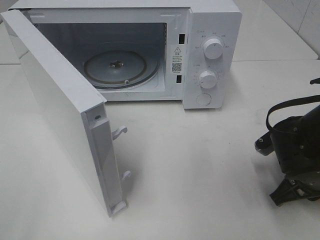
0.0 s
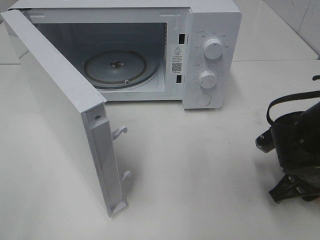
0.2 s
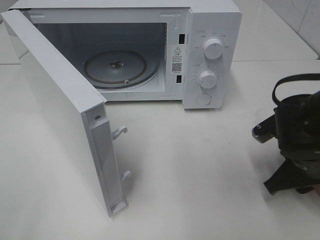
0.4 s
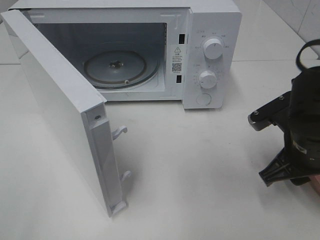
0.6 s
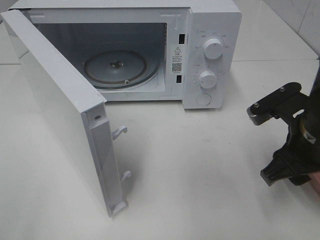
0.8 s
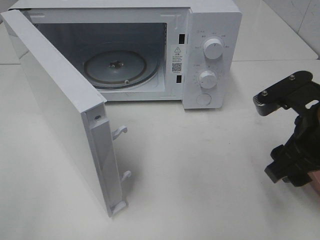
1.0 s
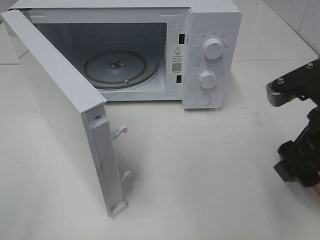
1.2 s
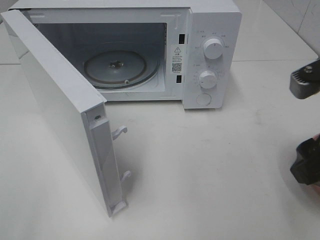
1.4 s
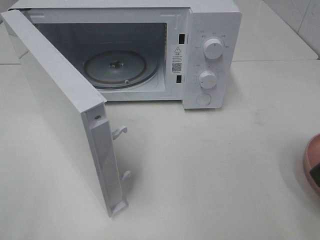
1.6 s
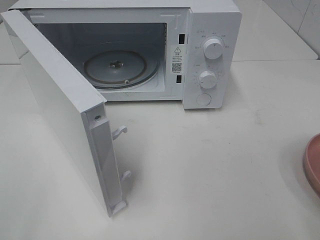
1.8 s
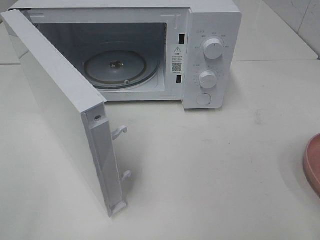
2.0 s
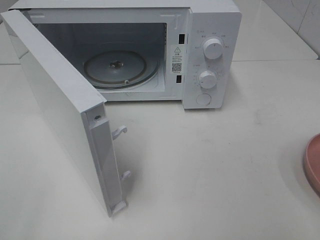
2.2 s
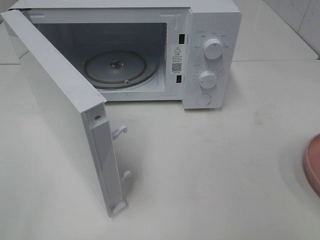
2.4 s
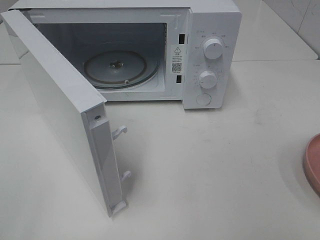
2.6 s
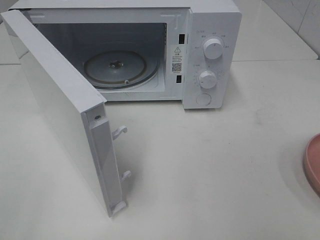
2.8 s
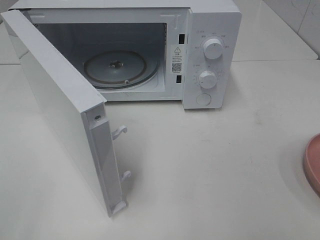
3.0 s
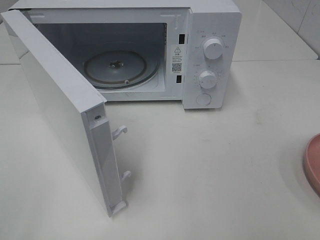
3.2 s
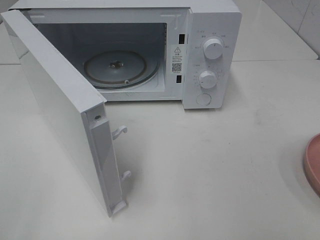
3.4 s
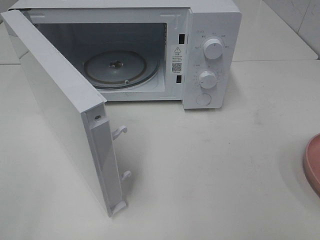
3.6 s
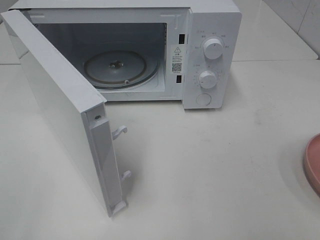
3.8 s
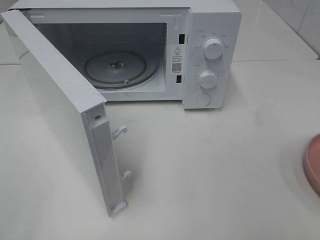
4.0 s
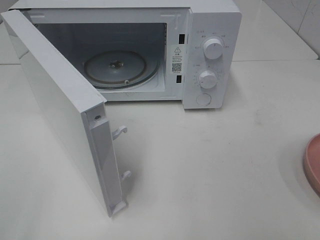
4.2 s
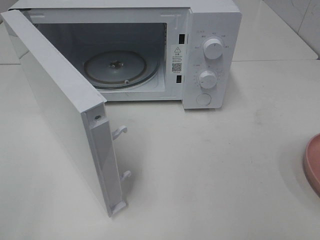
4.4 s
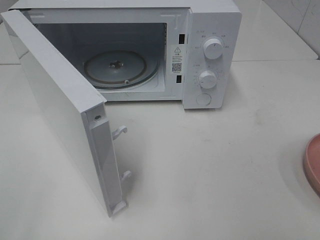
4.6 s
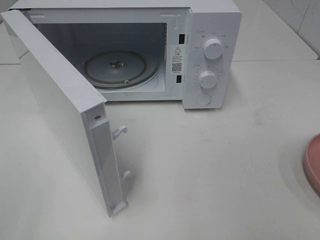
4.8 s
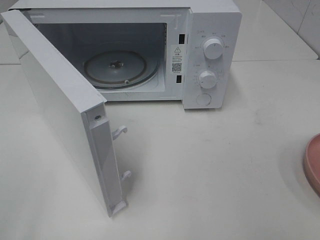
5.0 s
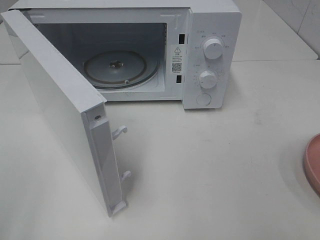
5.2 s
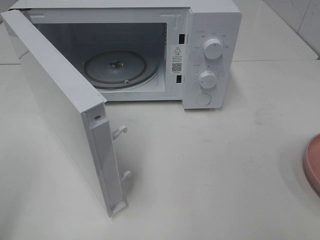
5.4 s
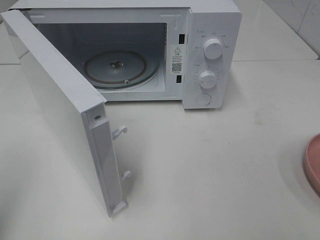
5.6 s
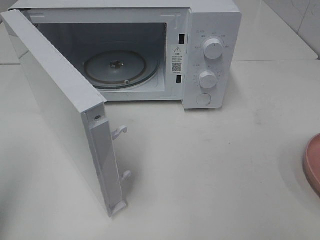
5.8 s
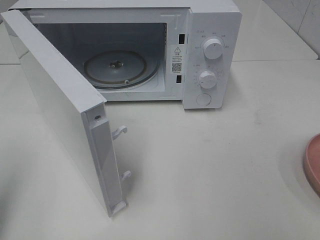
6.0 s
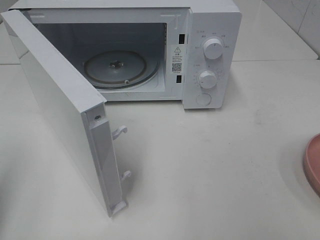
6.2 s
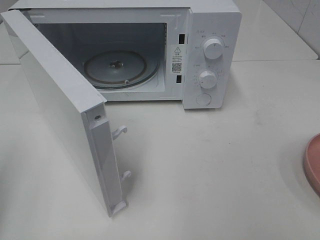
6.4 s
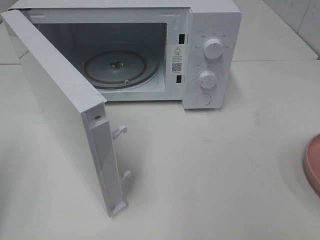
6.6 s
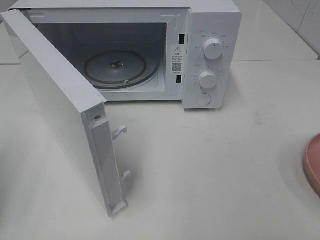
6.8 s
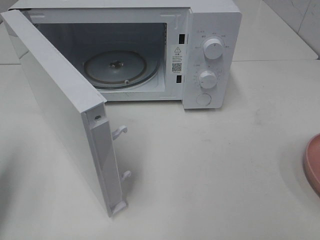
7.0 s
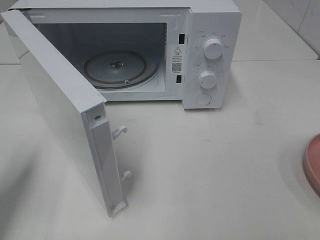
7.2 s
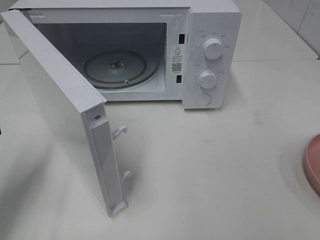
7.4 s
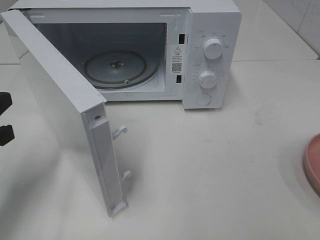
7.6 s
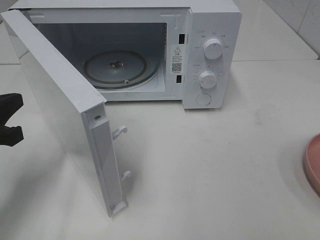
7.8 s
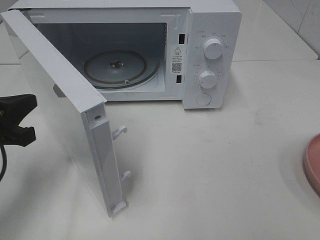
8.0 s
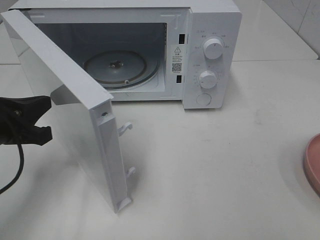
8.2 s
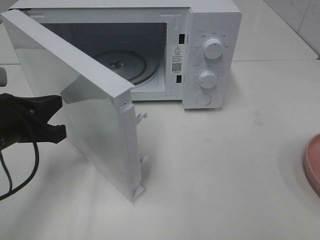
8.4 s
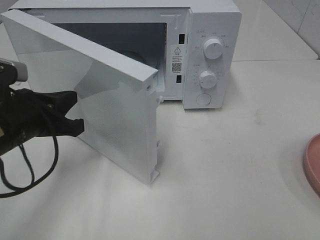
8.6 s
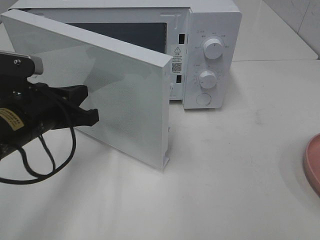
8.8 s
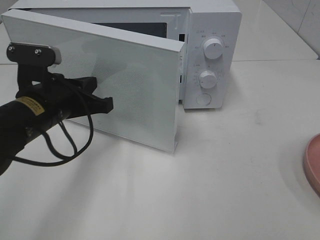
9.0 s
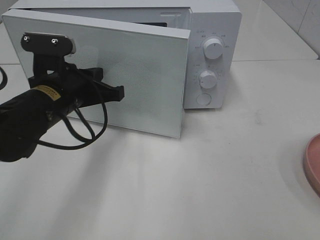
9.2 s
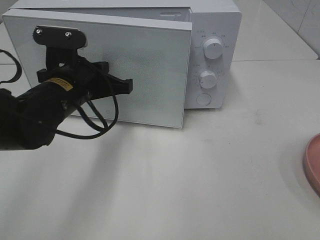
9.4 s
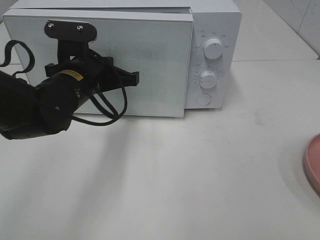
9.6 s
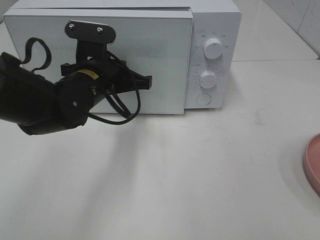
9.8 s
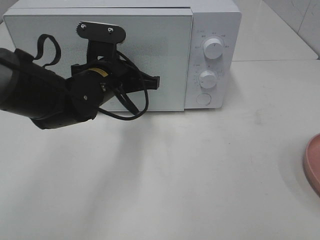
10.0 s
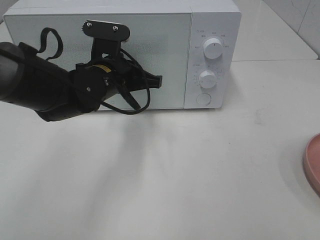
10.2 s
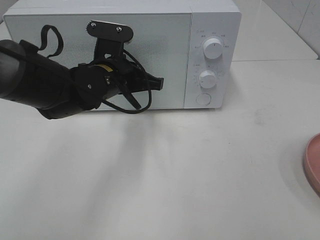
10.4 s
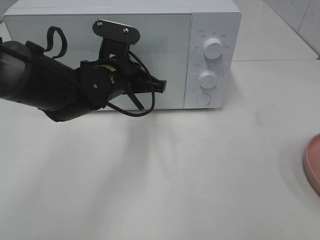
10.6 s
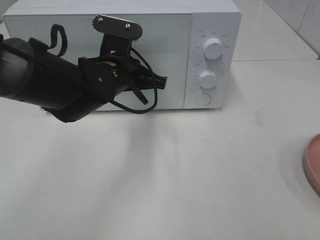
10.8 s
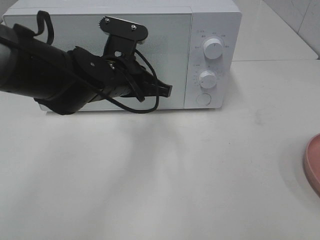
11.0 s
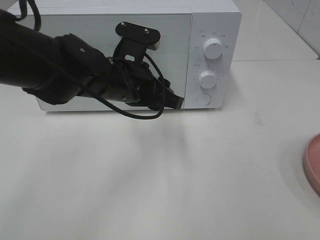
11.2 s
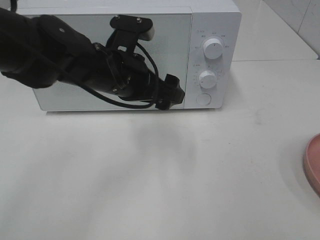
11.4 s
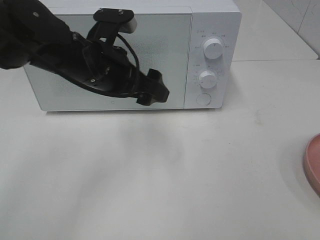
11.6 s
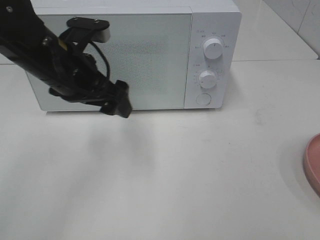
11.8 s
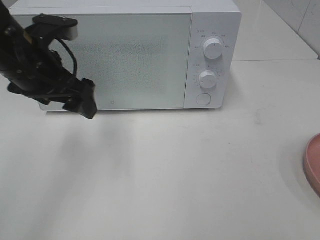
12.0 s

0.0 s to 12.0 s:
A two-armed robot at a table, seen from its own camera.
Task of the whole recording: Heat the burger.
Step, 0.4 to 10.8 s: Left hand: close the microwave door.
0.0 to 1.6 s: The right gripper moves upward and backward, about 20 cm, and opens its fingers.
1.6 to 3.0 s: The right gripper moves backward and to the right, approximately 15 cm.
3.0 to 4.4 s: The two grippers keep their place.
4.4 to 6.0 s: The left gripper heads forward, covering about 10 cm, and closes its fingers.
6.0 to 7.6 s: The left gripper goes about 10 cm forward and downward.
7.6 to 9.0 s: The left gripper is displaced to the right and forward by some 15 cm.
9.0 to 10.4 s: The left gripper travels to the right and forward by some 10 cm.
10.4 to 12.0 s: The left gripper shifts about 10 cm to the left and upward, and opens up.

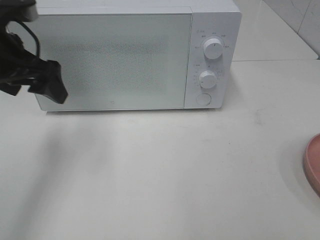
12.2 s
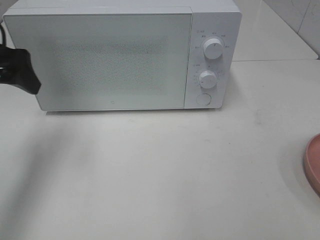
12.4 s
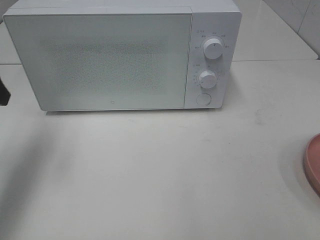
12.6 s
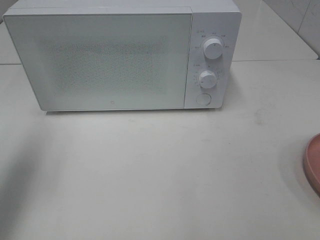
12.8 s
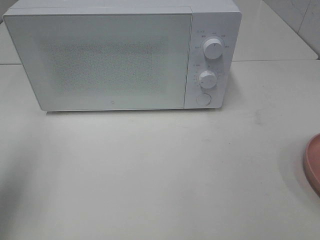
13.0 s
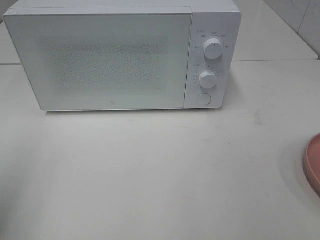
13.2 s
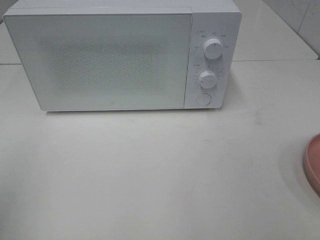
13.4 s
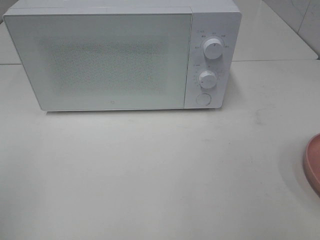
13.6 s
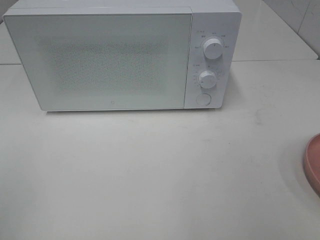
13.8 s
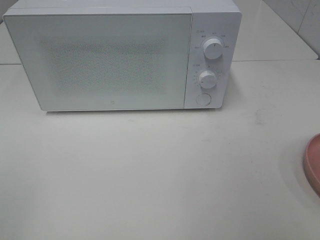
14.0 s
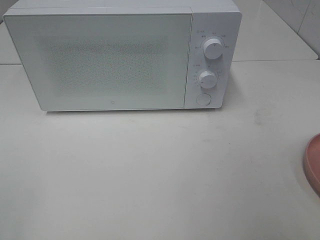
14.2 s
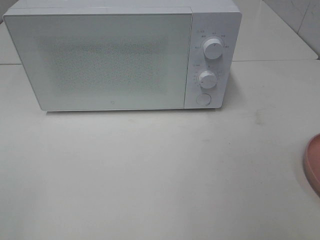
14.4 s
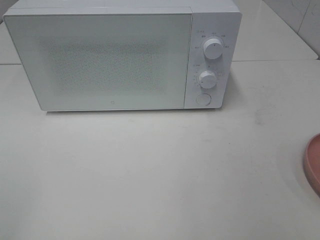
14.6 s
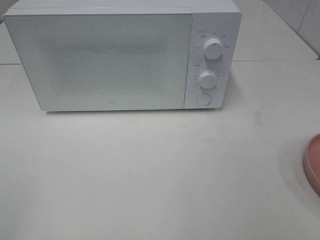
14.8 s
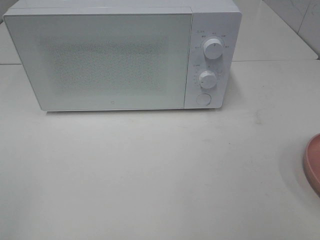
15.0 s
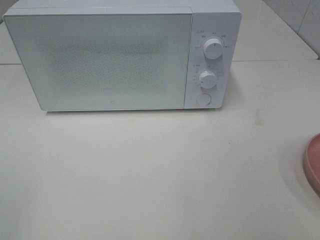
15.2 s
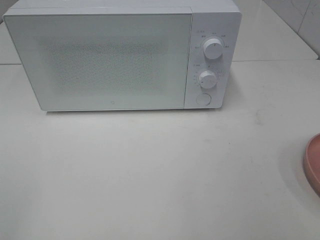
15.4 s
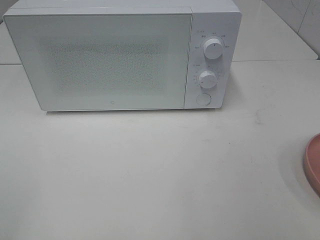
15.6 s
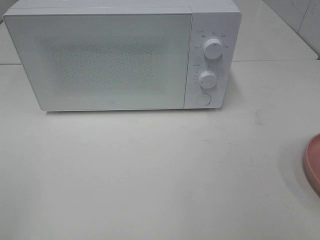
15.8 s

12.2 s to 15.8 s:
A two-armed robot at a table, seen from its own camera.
Task of the whole recording: Heat the burger.
12.2 to 14.0 s: The left gripper moves backward, some 30 cm.

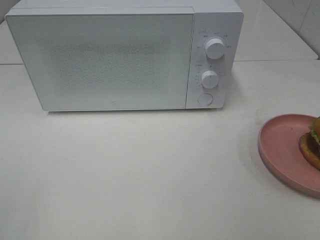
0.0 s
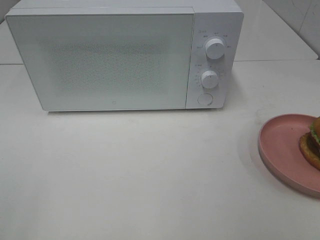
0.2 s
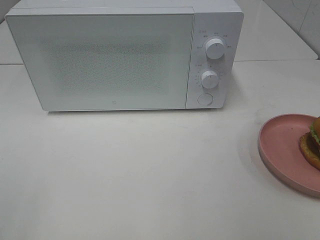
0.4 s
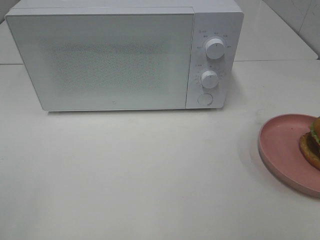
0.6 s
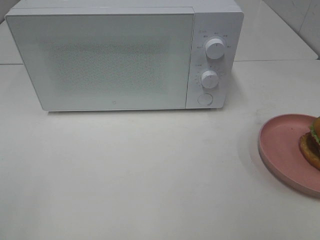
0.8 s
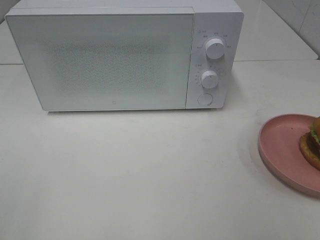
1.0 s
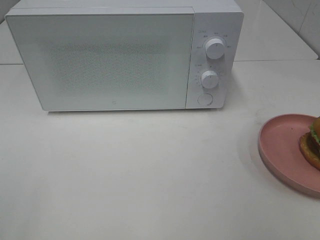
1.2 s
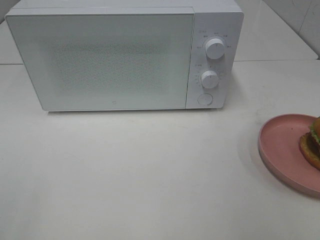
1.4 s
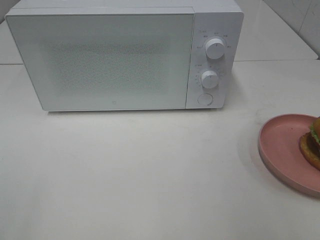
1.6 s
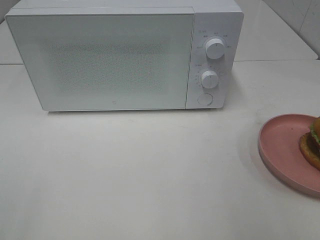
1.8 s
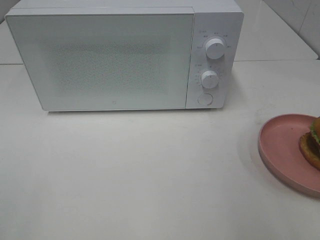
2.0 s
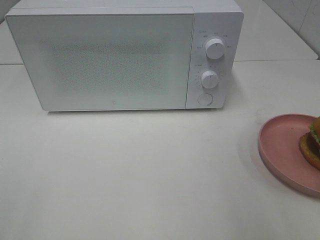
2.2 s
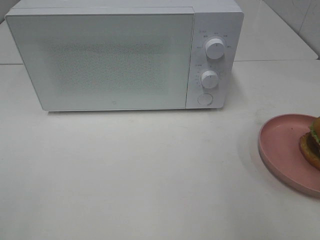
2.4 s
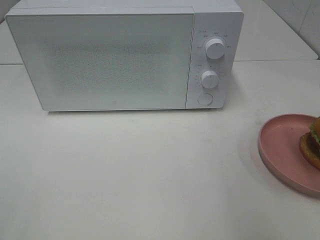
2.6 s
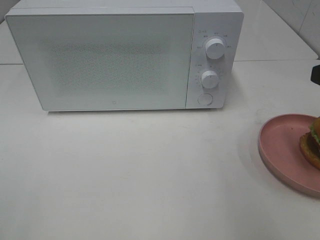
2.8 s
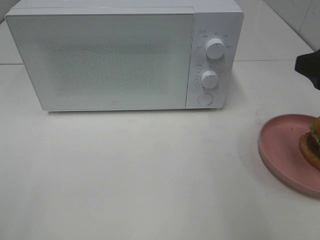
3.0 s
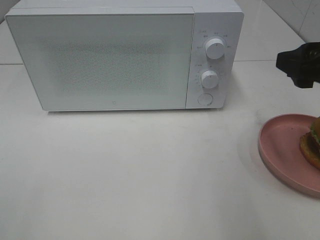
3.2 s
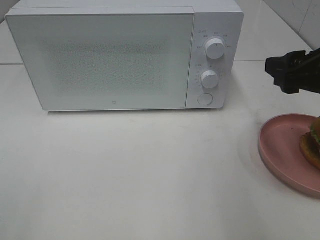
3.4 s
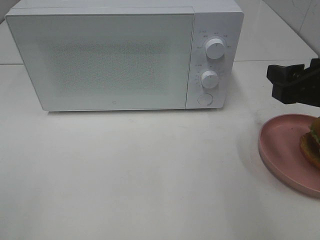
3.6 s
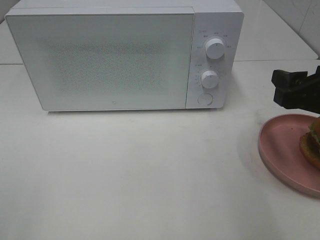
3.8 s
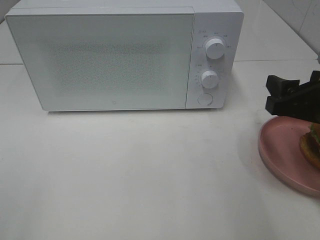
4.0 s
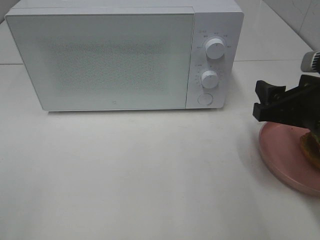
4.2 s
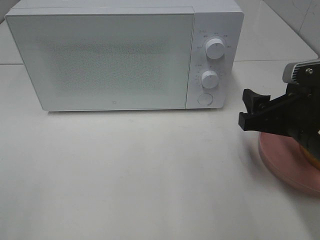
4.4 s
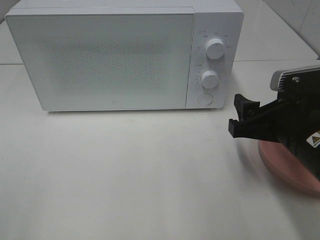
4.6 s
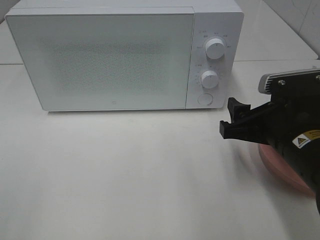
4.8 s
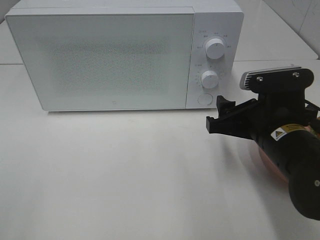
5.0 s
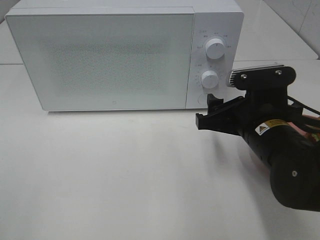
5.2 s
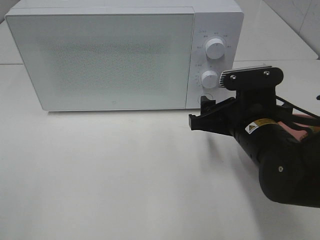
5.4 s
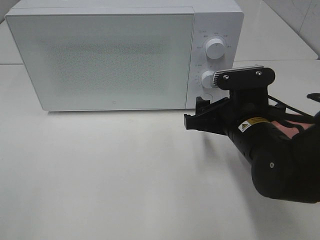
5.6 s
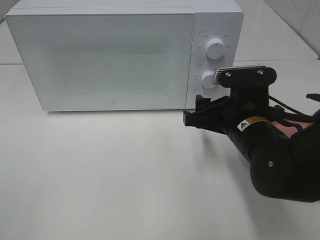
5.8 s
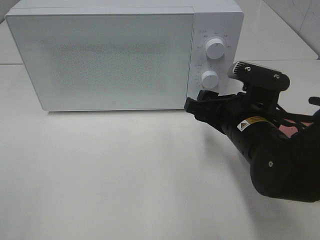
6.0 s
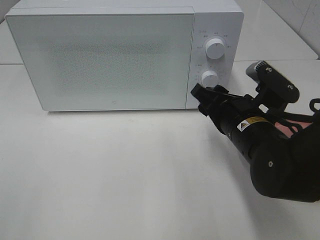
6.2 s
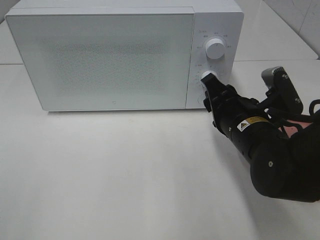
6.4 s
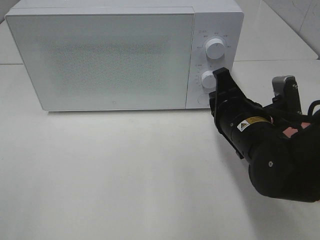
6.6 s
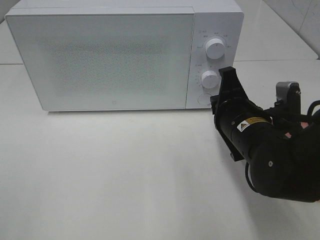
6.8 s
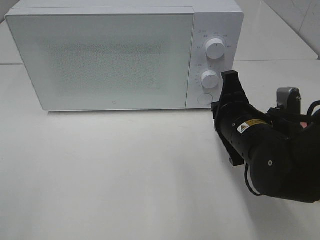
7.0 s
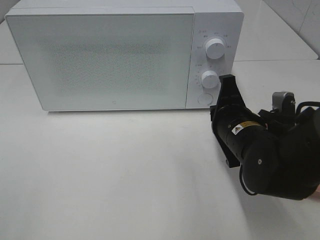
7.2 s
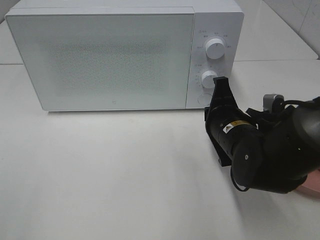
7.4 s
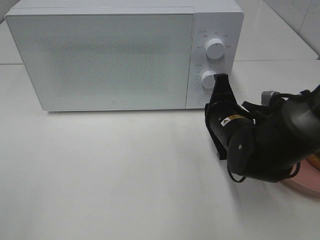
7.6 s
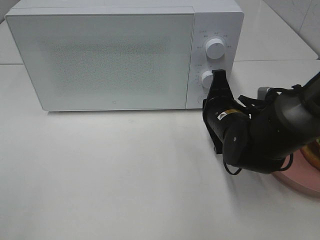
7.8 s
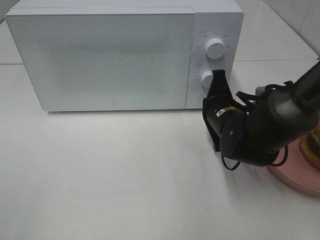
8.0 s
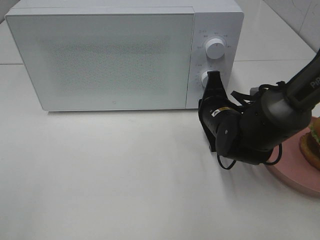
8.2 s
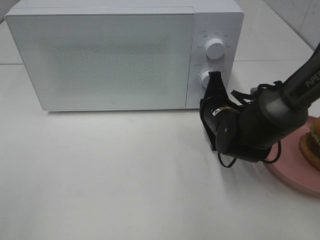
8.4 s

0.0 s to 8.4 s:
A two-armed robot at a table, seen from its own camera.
Task of the whole recording: Heat the burger.
2.8 to 4.2 s: The right gripper shifts roughly 10 cm downward.
4.2 to 5.6 s: The right gripper heads to the left, covering approximately 10 cm.
5.6 to 7.0 s: The right gripper closes up.
7.0 to 8.4 s: The right gripper goes roughly 10 cm forward.
